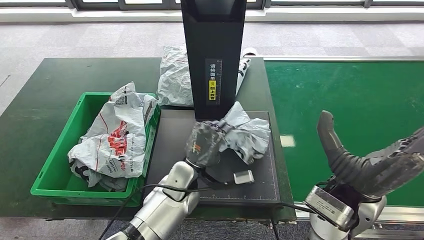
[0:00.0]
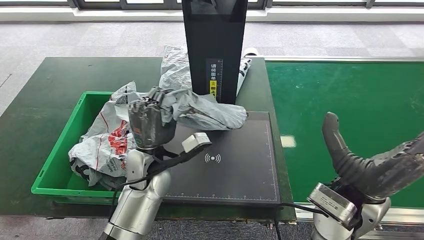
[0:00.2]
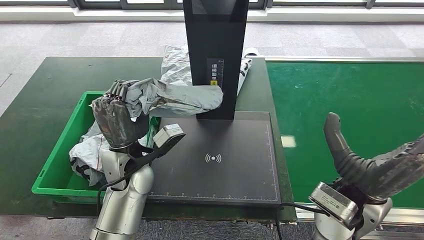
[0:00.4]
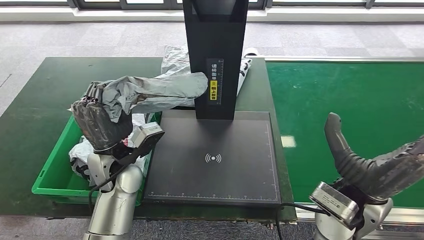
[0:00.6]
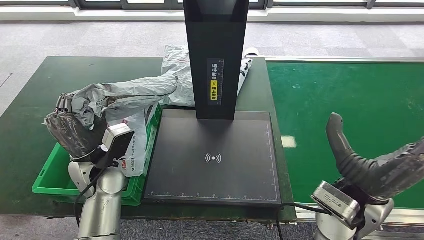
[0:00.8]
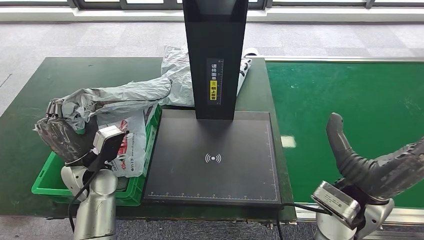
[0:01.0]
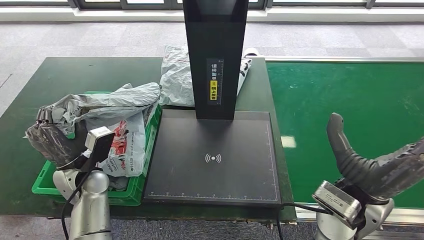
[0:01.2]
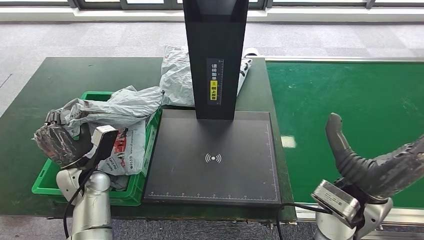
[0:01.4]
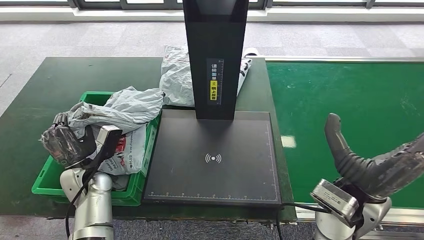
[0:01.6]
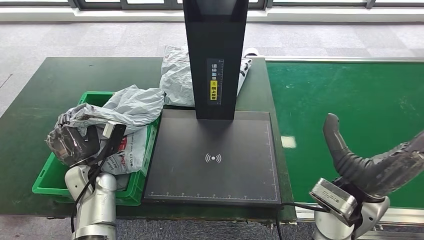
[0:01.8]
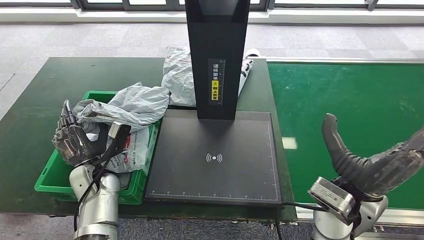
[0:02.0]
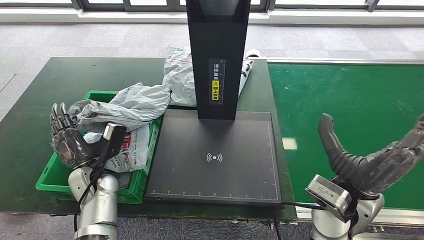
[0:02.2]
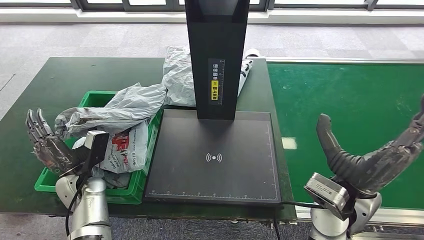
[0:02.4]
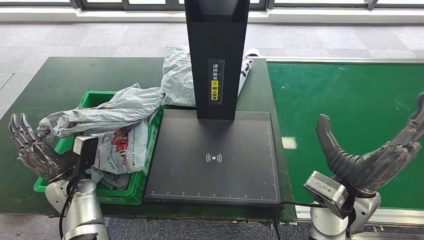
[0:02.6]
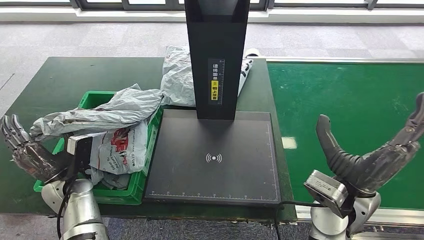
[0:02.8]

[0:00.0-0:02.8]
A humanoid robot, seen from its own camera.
Step, 0:00.8 to 0:02.8: Place the parcel into the delivery box.
